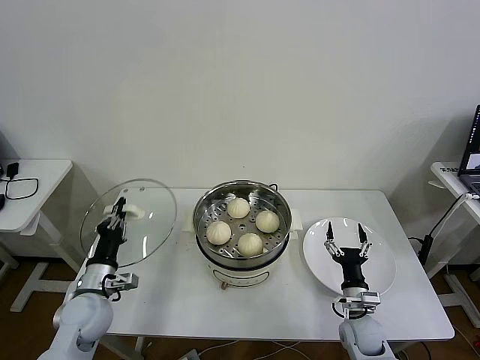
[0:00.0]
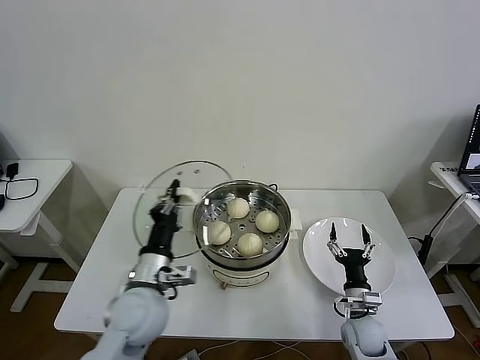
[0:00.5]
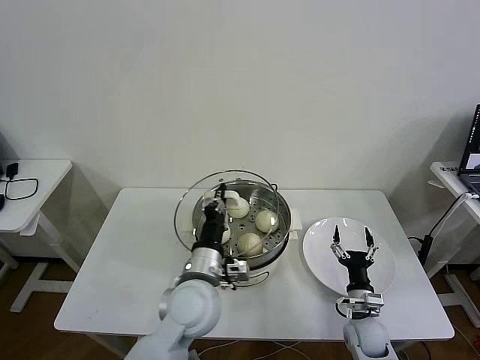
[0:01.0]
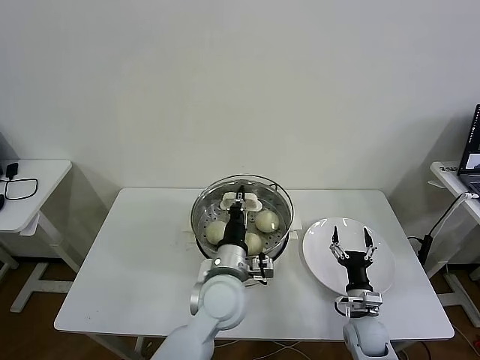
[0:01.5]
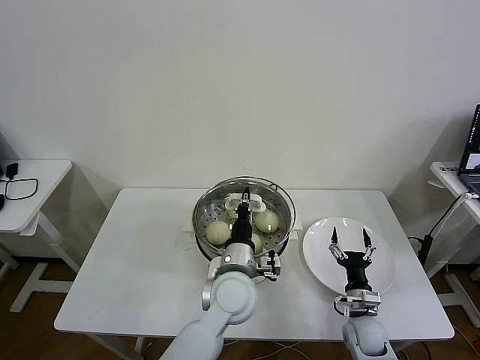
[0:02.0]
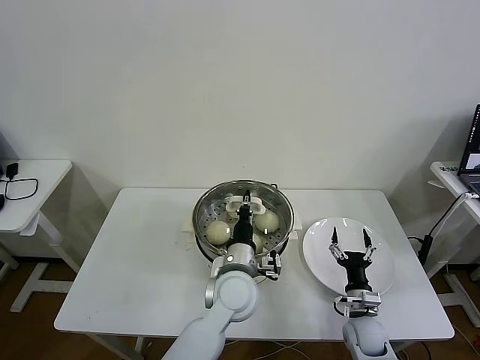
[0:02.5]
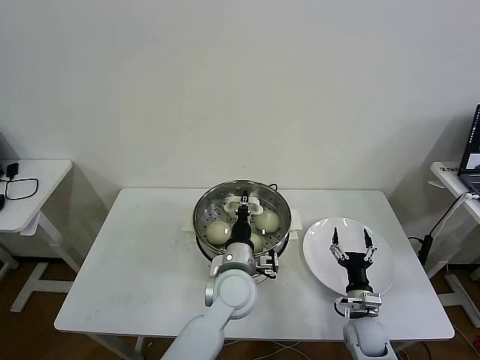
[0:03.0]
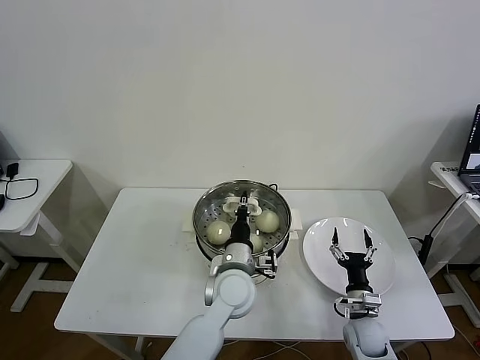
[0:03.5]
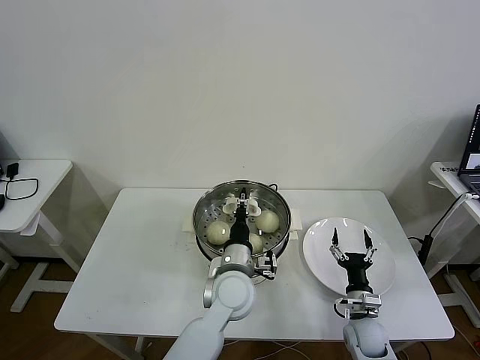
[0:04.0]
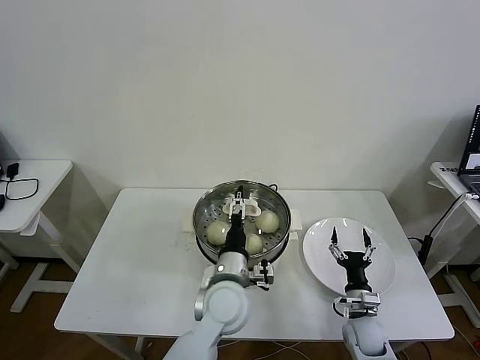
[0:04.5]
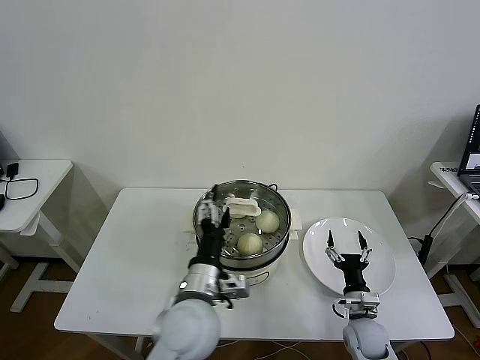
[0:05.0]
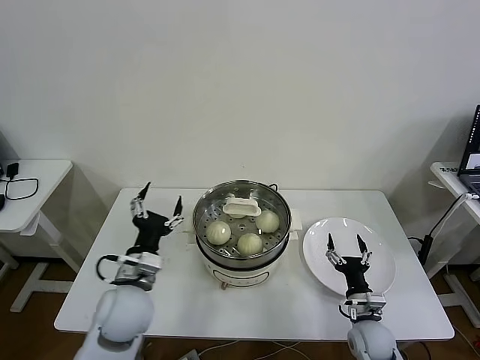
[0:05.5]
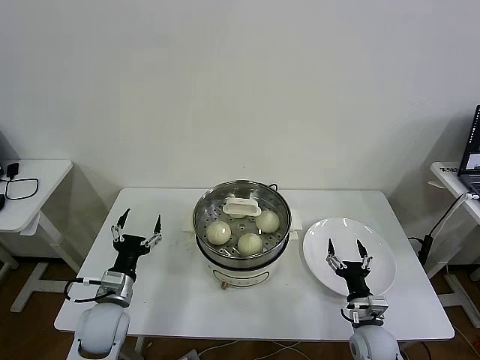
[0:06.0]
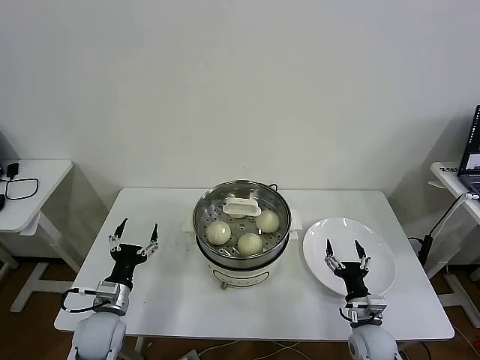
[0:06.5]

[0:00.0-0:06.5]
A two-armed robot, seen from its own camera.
Task of the whole recording: take steamed baozi put them in steamer then cover it.
Step, 0:00.0 to 0:04.5: Place the pot lid on the steamer with left gripper.
0:00.0 to 0:02.0: The left gripper shifts approximately 30 cm to the right.
0:02.0 to 0:04.5: The left gripper opens up.
0:04.5 to 0:06.5: The left gripper goes about 30 cm to the left.
